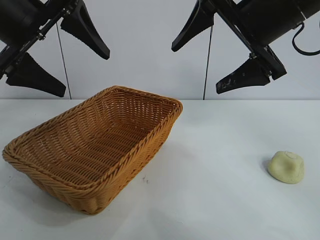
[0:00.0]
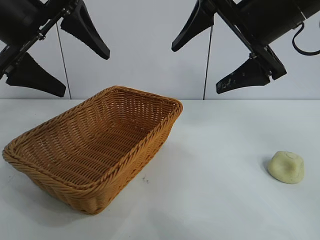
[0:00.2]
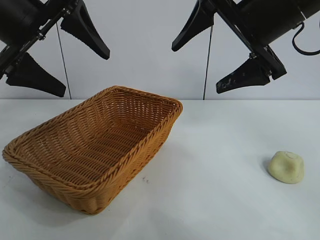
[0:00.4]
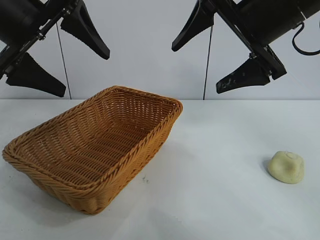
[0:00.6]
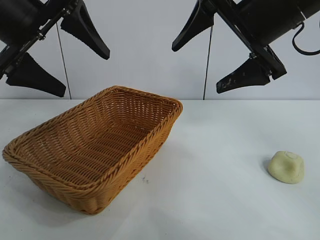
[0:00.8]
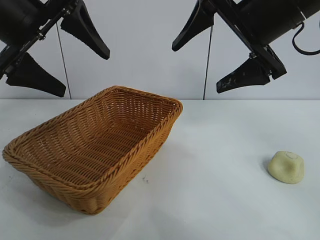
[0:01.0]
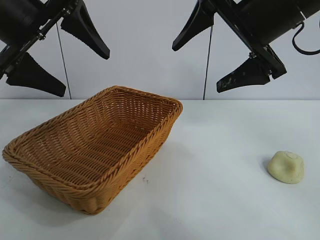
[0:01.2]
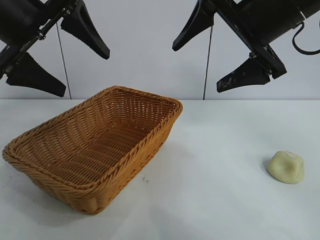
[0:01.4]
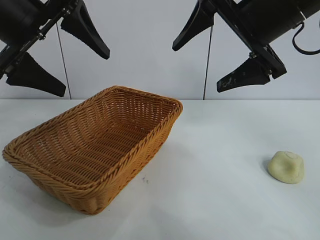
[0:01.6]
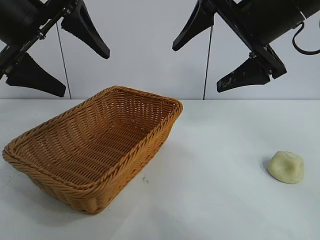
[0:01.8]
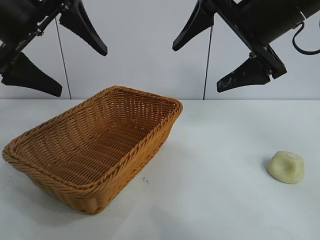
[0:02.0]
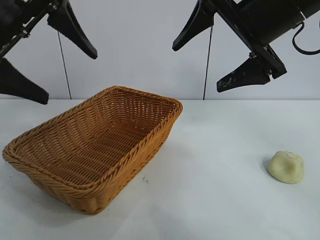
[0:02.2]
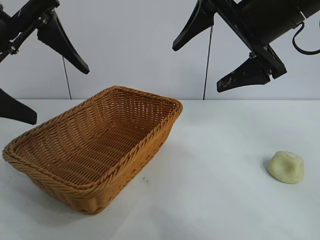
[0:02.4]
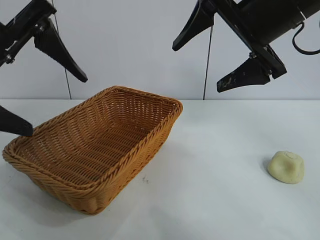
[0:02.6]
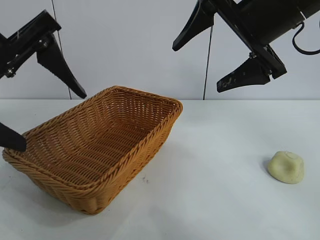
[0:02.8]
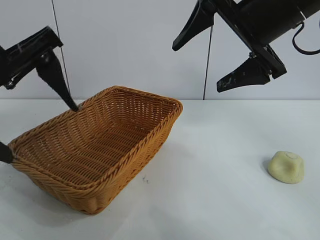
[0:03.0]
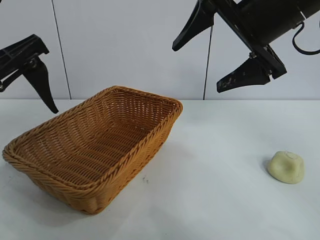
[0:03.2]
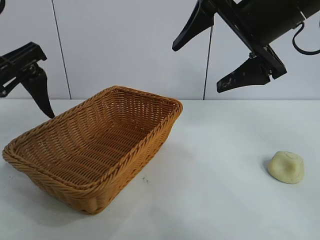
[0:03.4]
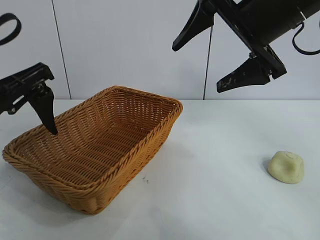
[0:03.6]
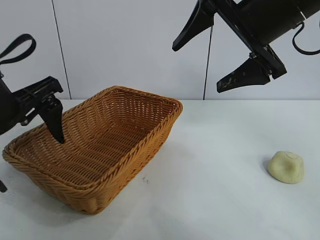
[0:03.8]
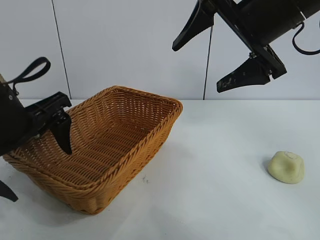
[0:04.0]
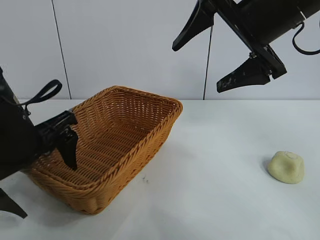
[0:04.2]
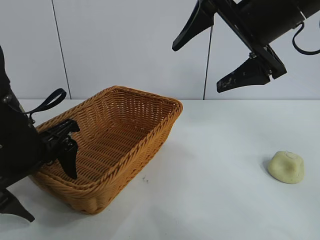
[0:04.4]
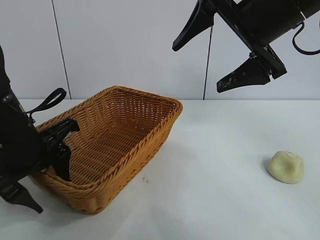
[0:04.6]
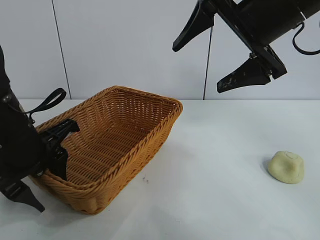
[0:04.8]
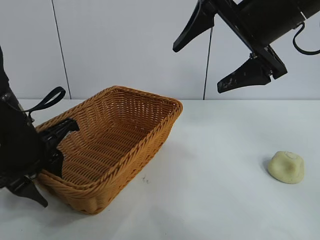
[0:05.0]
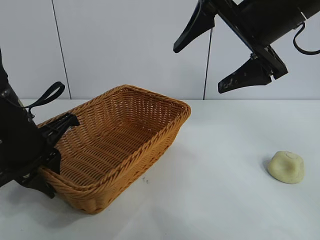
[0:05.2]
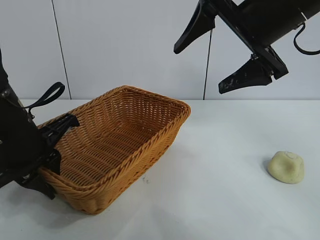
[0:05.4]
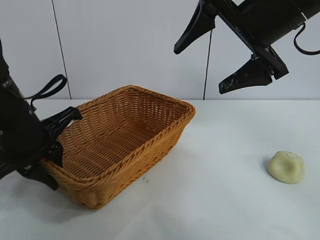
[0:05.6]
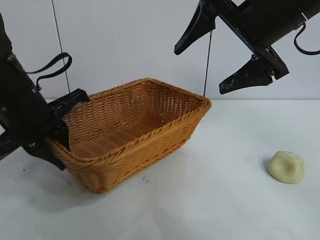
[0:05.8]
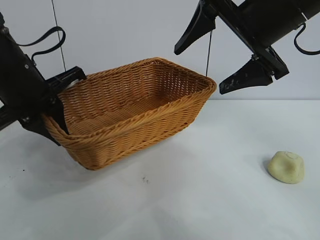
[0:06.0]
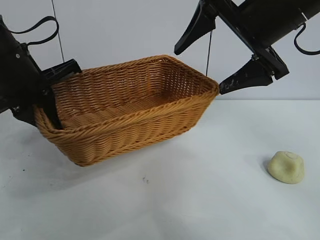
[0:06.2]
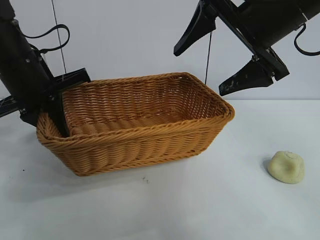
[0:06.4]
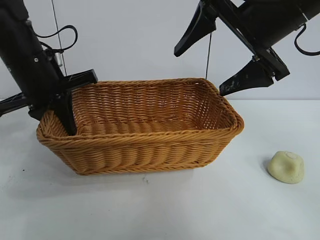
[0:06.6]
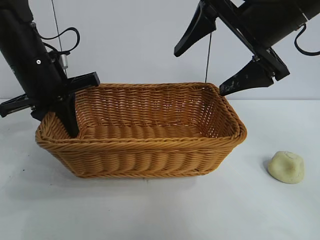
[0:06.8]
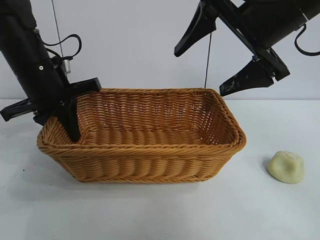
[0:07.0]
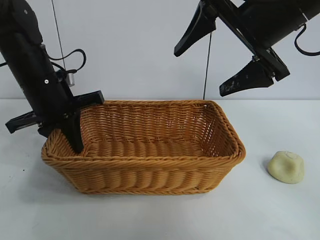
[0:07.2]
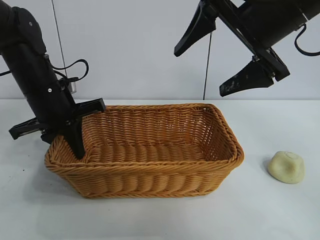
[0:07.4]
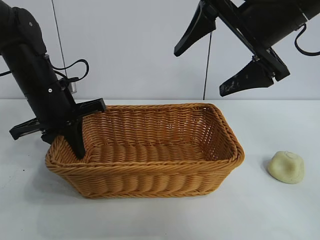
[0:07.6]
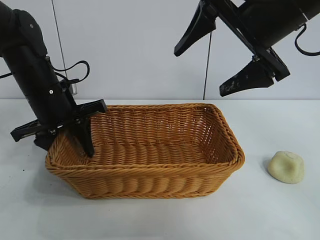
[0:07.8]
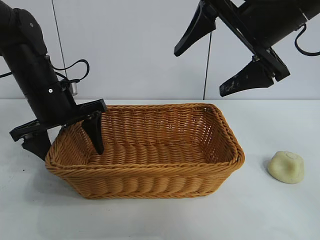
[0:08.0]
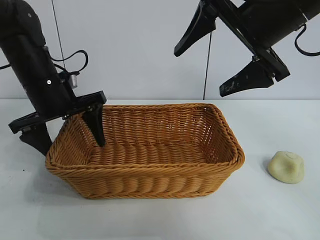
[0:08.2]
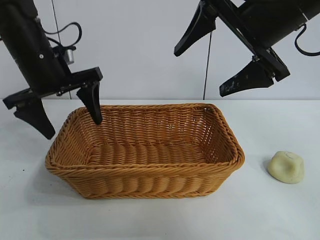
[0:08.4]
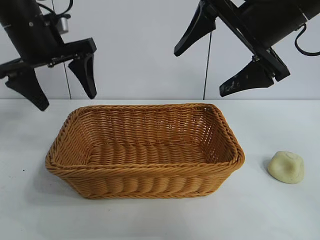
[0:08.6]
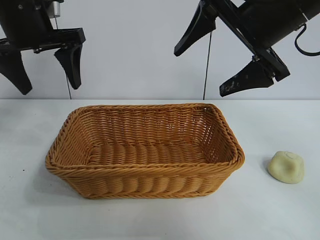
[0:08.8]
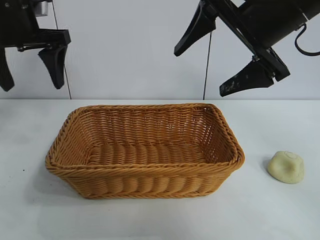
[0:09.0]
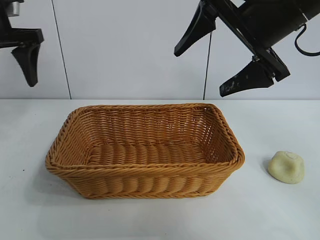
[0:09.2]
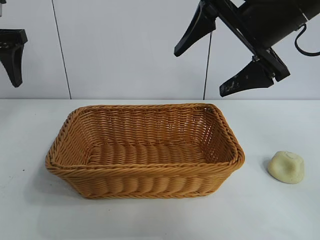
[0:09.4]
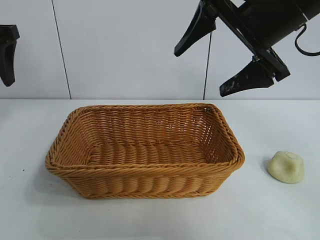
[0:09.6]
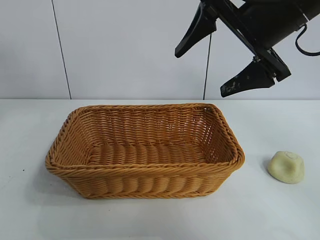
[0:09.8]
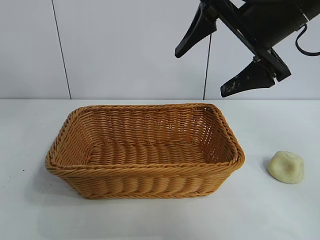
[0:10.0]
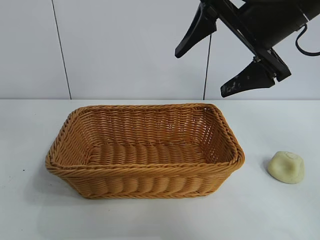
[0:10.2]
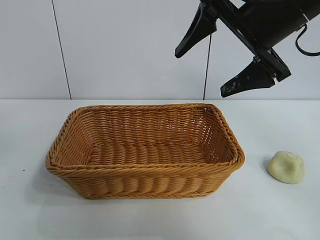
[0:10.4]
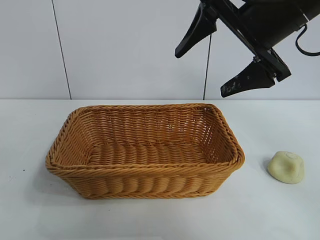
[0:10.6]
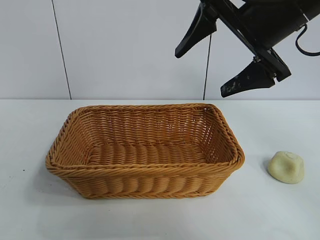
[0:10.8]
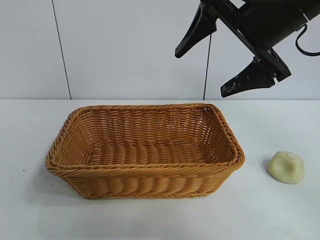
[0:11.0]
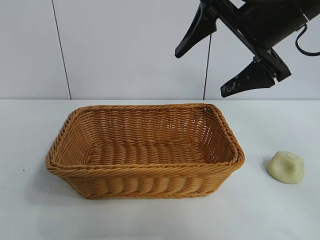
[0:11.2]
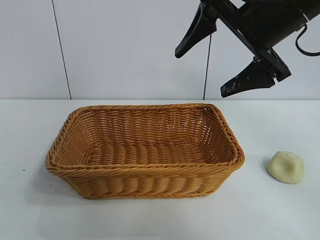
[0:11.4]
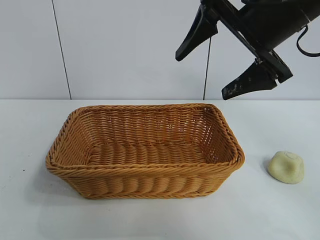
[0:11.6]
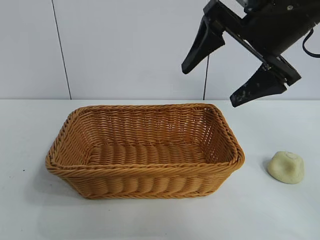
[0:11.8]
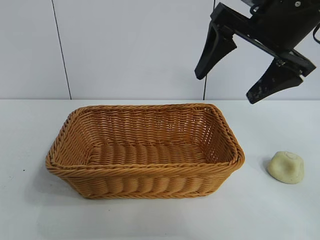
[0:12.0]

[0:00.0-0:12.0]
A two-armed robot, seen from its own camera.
Task of the whole recording: pick up the egg yolk pastry and put it into the basket.
Step, 0:01.8 to 0:05.0: Grasp the basket with left gripper.
Step, 0:05.4 to 0:07.8: Place the basket in the center of view with left gripper.

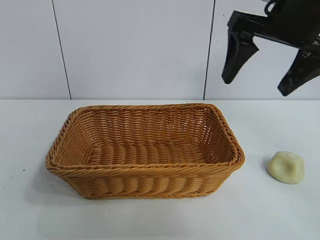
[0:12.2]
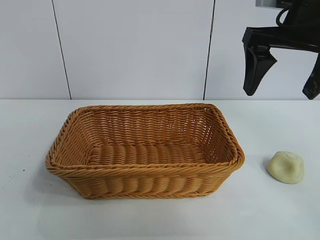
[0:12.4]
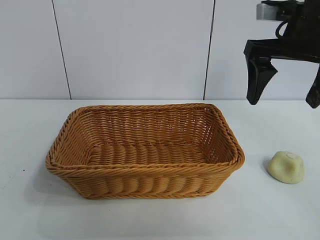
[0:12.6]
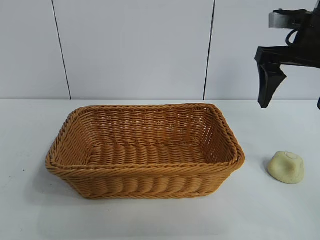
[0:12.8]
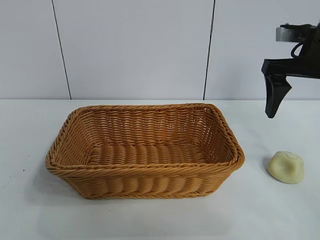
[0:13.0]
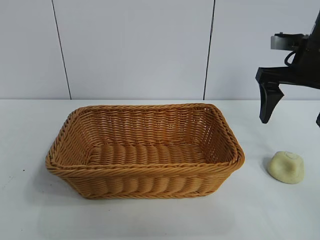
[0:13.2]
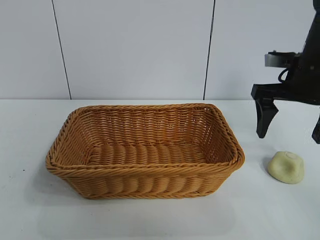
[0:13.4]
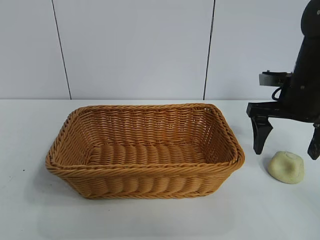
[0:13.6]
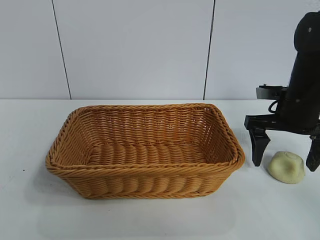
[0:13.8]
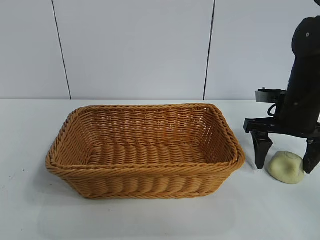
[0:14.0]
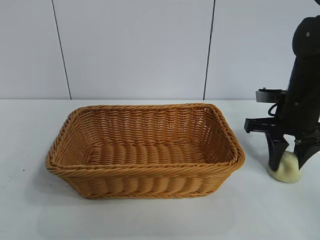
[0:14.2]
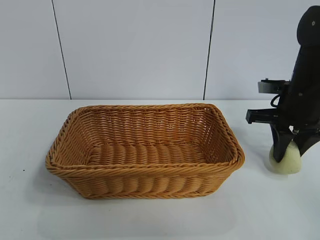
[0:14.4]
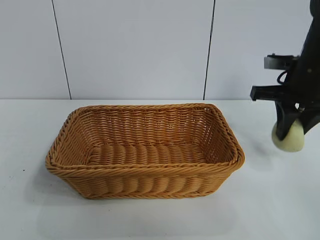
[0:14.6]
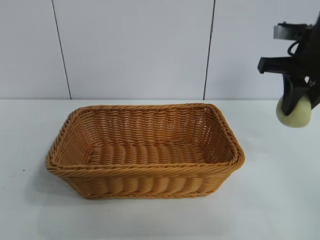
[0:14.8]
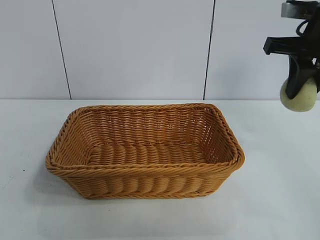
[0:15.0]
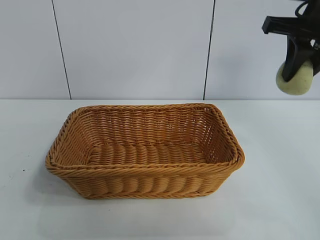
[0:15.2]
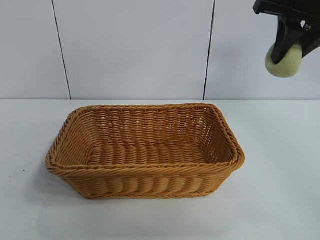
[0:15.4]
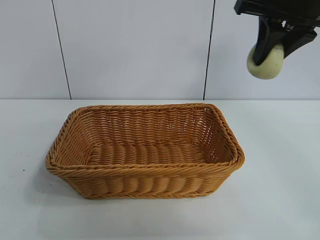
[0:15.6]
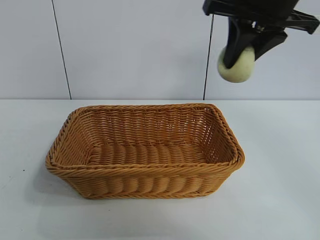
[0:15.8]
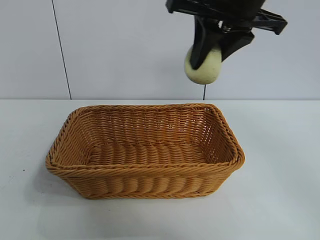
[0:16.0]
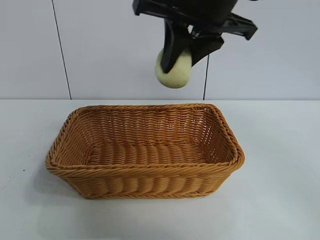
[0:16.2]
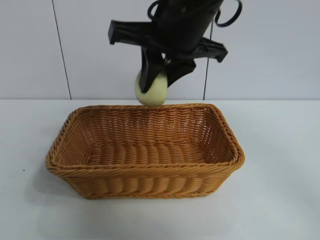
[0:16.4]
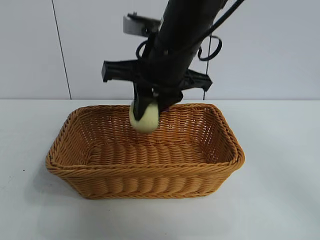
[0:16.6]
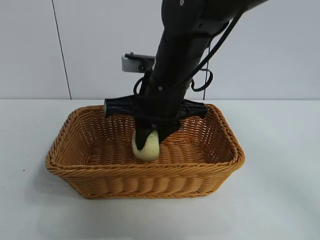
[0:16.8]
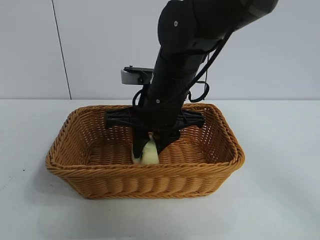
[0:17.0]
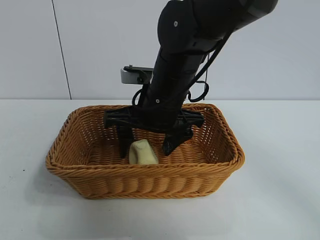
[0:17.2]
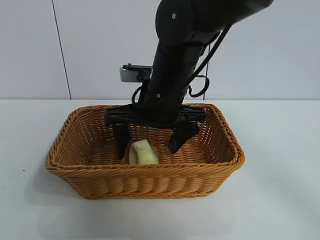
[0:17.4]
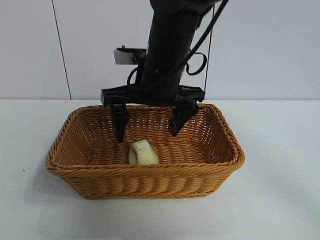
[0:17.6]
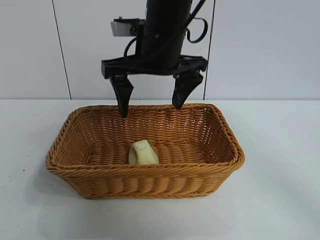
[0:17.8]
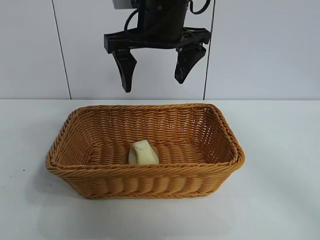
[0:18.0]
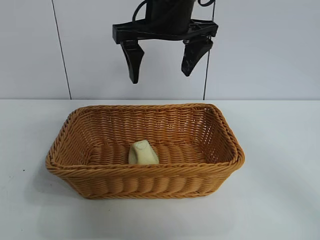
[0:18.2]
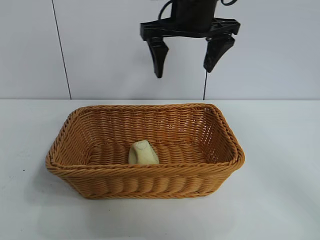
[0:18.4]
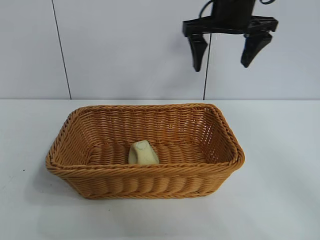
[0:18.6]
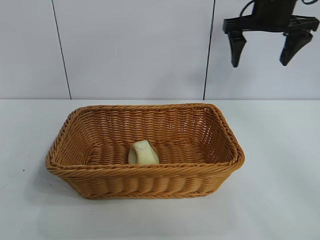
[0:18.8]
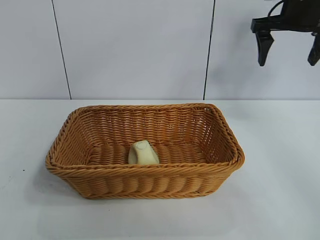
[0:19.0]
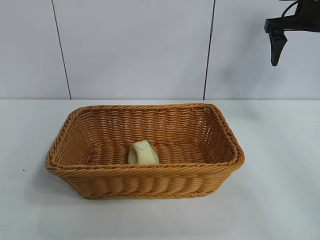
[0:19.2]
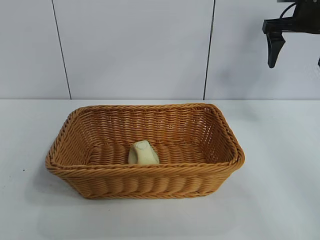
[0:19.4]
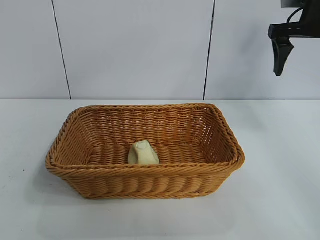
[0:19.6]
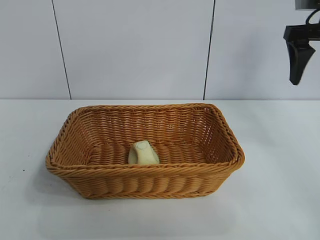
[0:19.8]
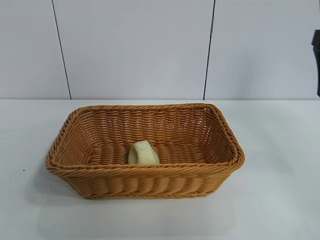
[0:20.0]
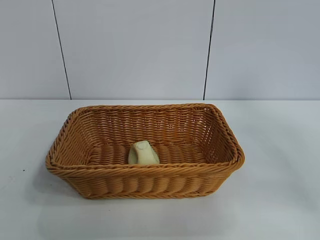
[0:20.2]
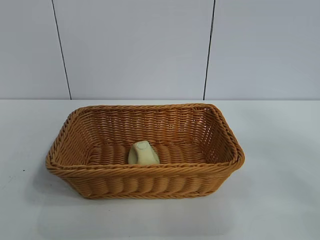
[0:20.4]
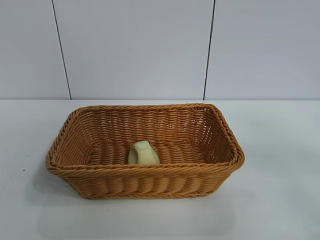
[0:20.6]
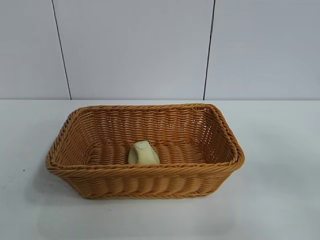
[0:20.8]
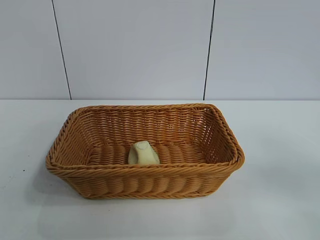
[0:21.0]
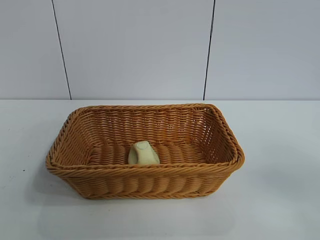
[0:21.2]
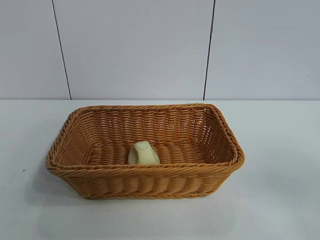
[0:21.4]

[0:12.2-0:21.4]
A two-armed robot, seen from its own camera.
Task of the whole recording: pick up the egg yolk pastry and put it into the basket.
Step, 0:12.2 to 0:14.2: Grasp egg yolk pastry with right gripper.
Step, 0:14.4 to 0:17.0: Place the egg yolk pastry in the basket with right gripper.
